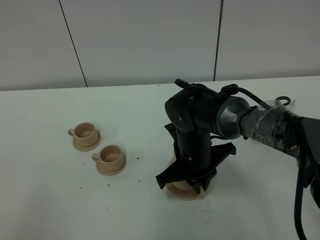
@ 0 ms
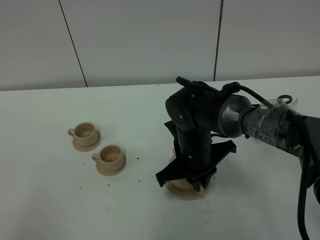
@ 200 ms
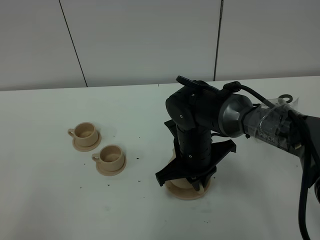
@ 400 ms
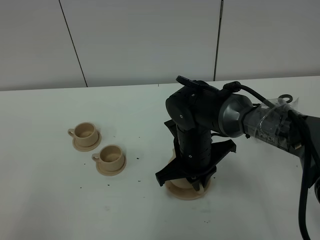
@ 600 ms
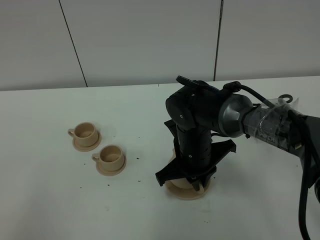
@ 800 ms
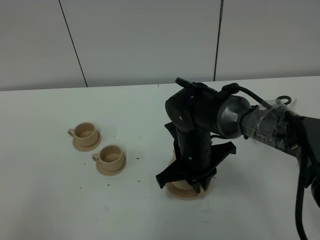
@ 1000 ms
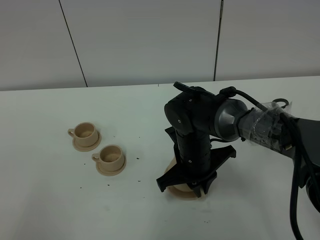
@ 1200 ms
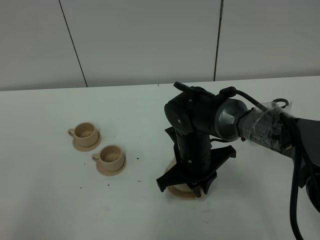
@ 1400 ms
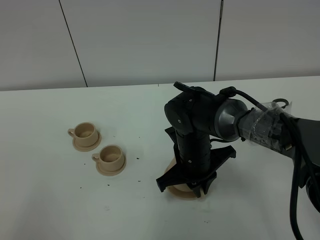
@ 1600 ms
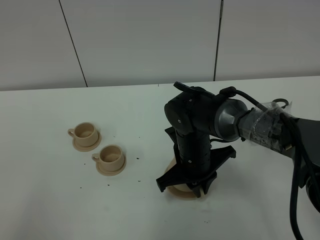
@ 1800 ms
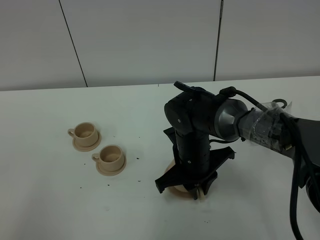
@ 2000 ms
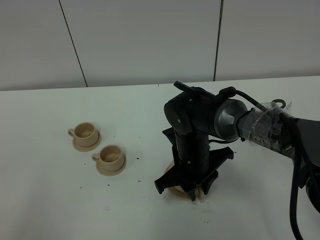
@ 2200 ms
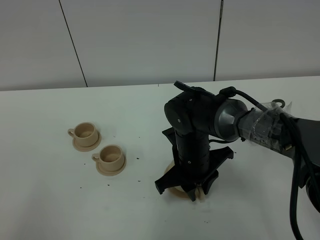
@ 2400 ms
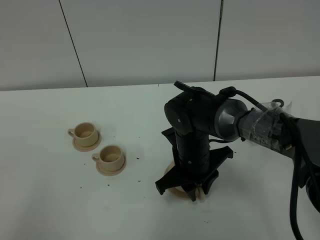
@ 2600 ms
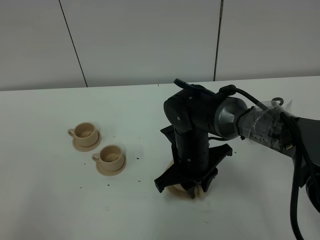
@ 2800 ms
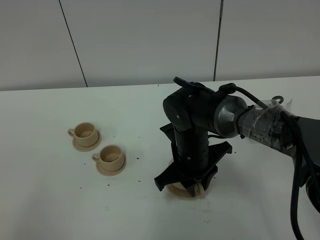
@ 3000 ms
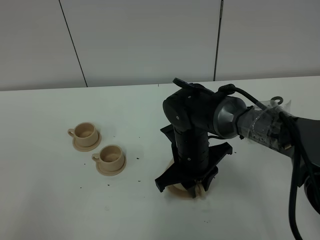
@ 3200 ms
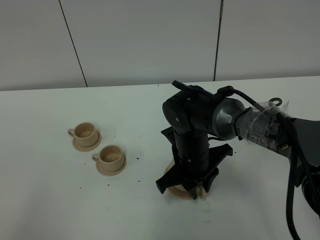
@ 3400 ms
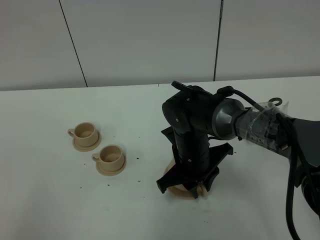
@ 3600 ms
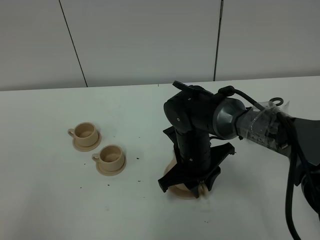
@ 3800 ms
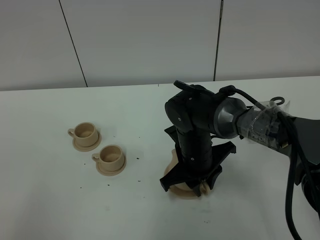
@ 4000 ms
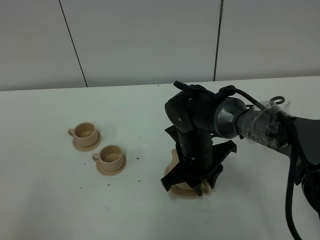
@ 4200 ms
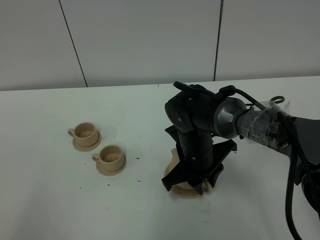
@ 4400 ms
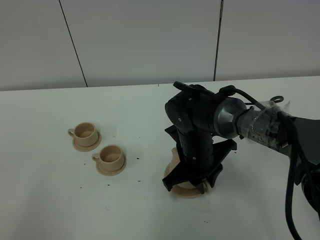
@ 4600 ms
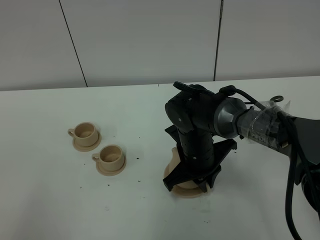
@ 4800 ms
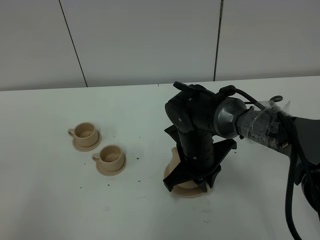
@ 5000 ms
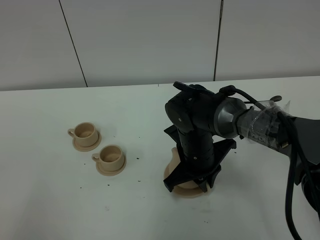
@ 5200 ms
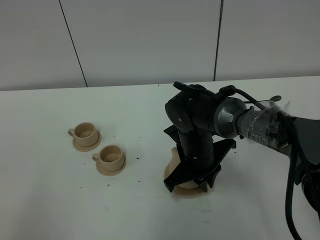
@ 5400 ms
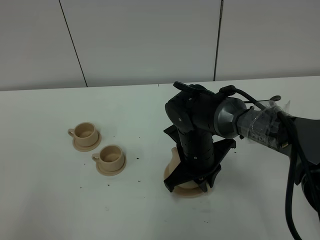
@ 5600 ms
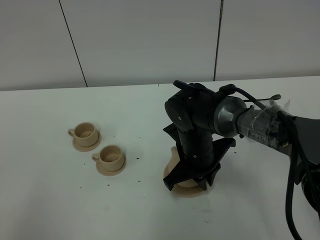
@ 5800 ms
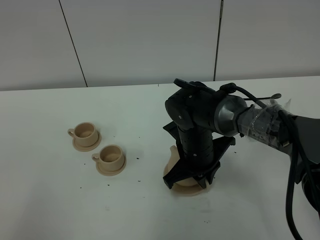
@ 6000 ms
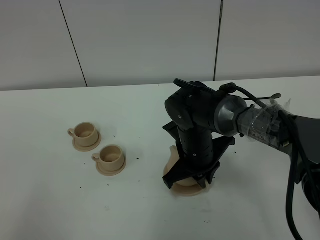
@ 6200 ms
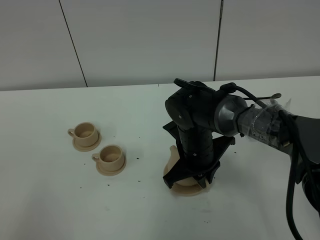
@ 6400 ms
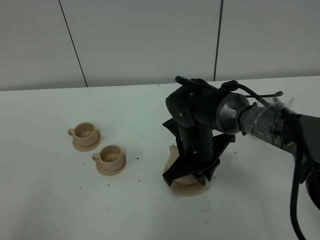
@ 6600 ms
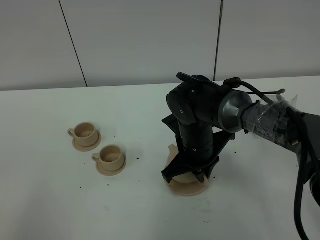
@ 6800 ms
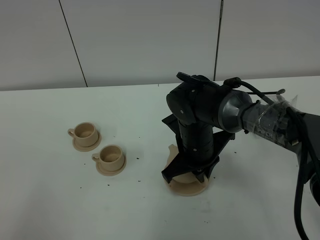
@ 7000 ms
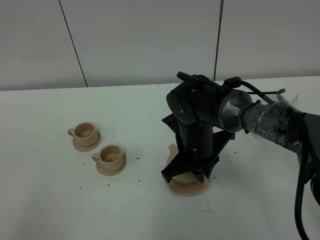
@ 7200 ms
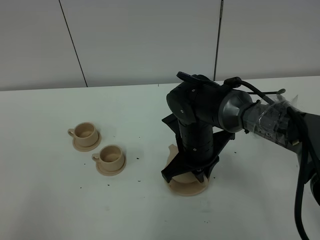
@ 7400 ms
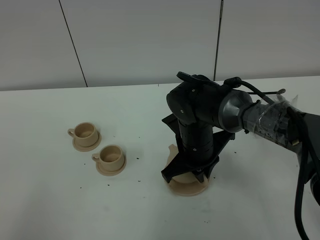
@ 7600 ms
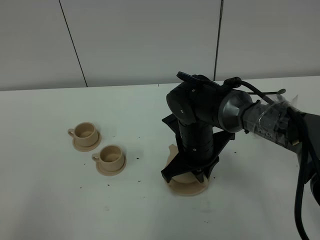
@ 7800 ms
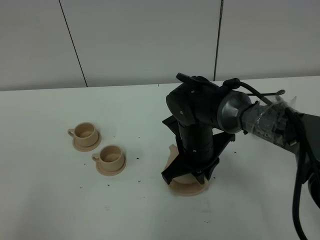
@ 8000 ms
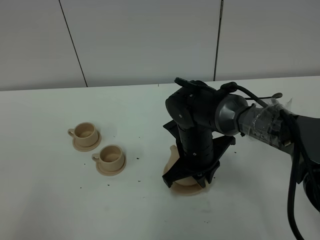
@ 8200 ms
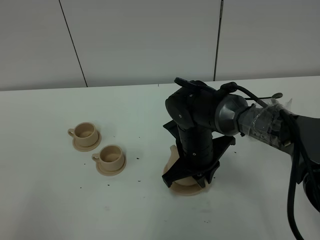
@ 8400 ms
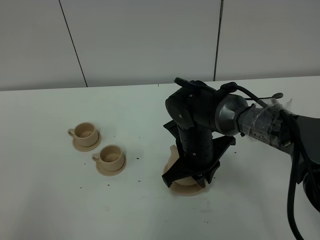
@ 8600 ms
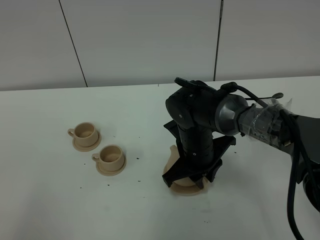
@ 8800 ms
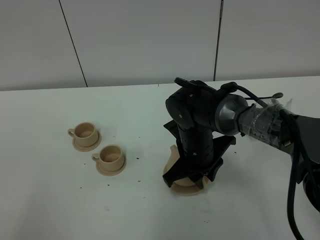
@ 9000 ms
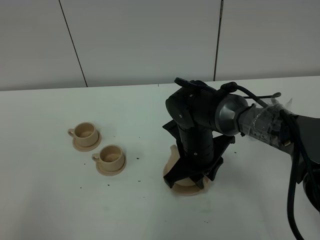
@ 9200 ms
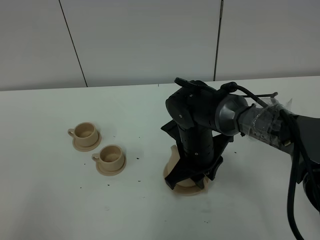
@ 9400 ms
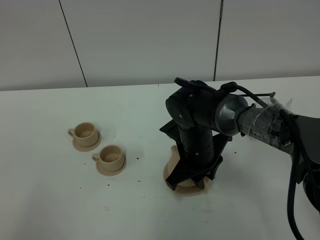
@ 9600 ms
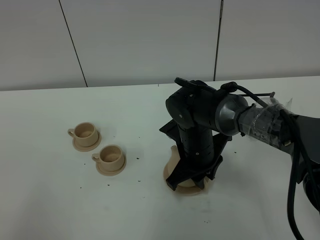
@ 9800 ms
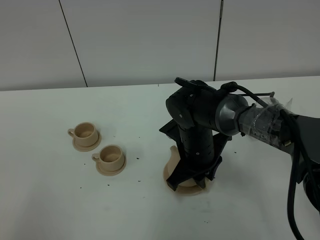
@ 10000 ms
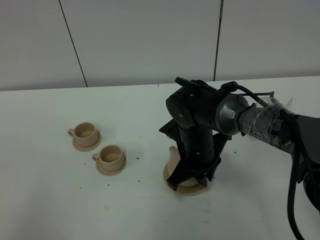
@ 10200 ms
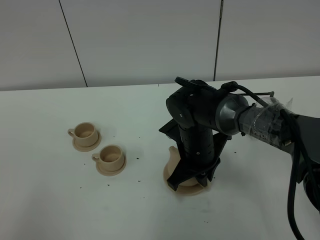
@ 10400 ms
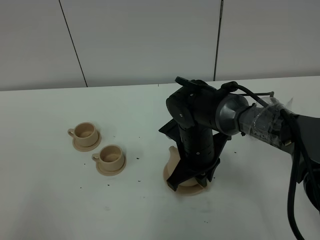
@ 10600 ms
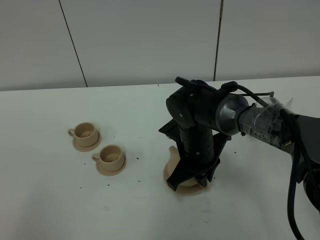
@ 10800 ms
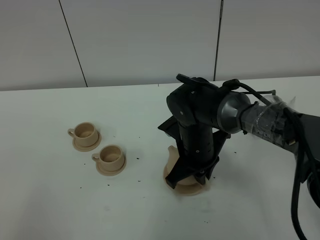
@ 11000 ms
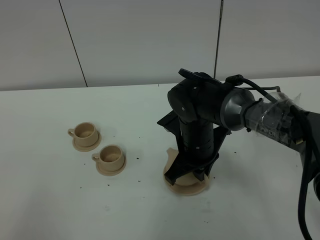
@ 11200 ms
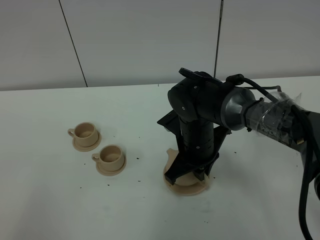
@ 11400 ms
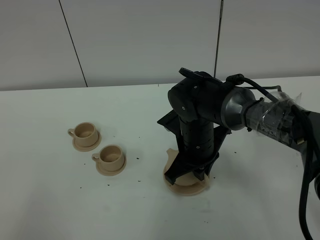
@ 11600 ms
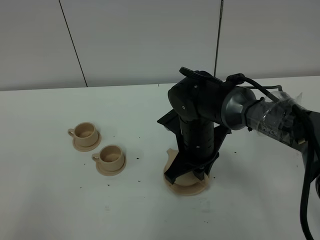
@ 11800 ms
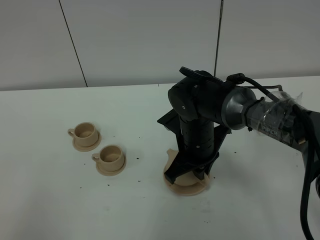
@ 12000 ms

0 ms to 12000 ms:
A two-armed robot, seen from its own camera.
Task of the whole recording: grasp the brown teapot and pour the tea into the two brown teacups one by one, put the brown teapot back in its original place.
0 ms to 1600 ms: Both grippers stay about where they are.
1600 ms to 3000 ms: The right gripper opens its fingers.
3000 ms to 4400 ms: The grippers move only a little.
4400 ms to 6000 ms: The right gripper closes up.
6000 ms to 7600 ms: There are only small adjustments of the grippers.
7600 ms to 9000 ms: The right gripper opens its fingers.
9000 ms to 10400 ms: The right gripper closes its fingers.
10400 ms to 12000 ms: The grippers stay close to where they were, moving slightly.

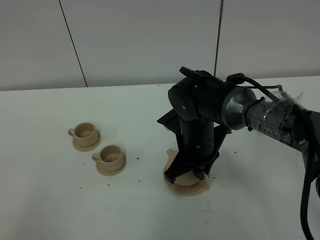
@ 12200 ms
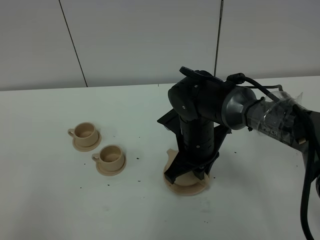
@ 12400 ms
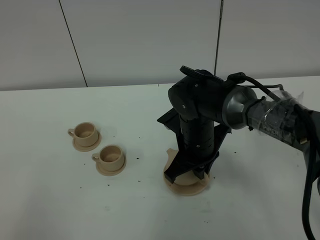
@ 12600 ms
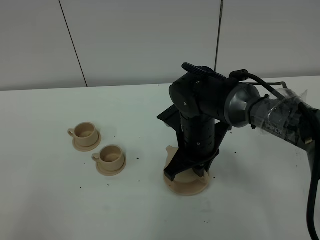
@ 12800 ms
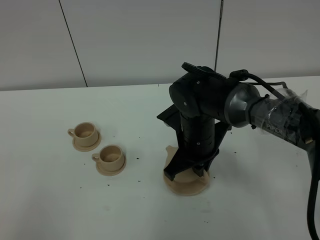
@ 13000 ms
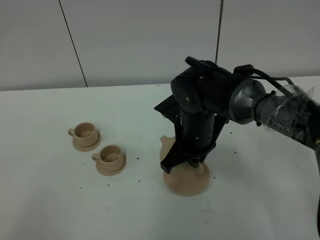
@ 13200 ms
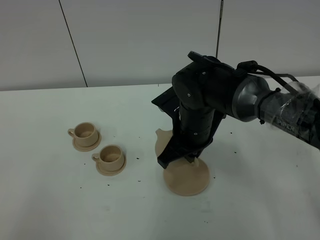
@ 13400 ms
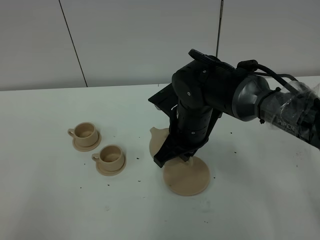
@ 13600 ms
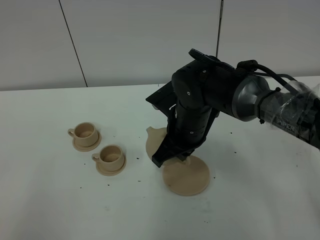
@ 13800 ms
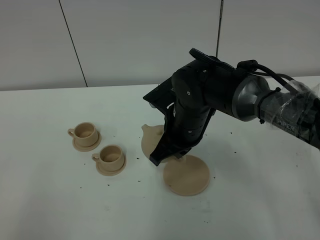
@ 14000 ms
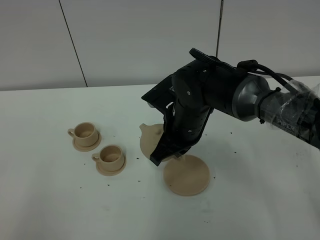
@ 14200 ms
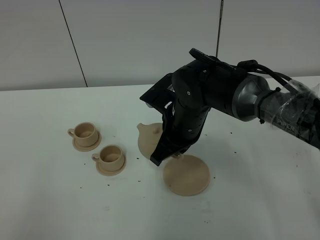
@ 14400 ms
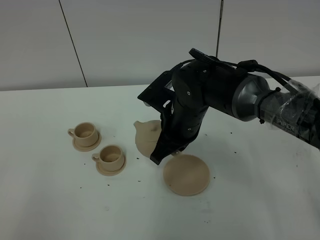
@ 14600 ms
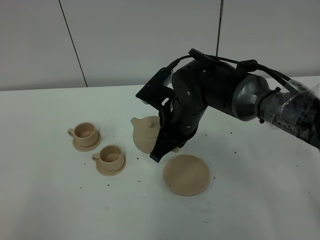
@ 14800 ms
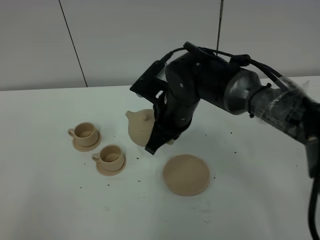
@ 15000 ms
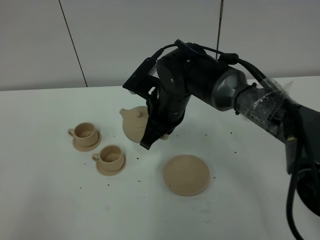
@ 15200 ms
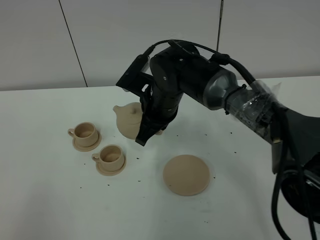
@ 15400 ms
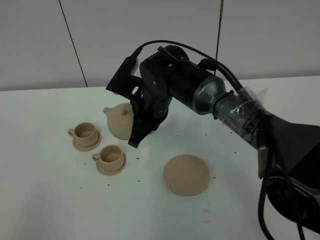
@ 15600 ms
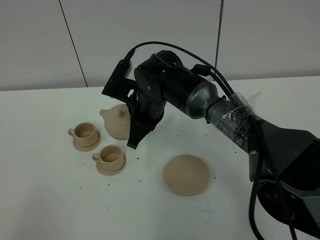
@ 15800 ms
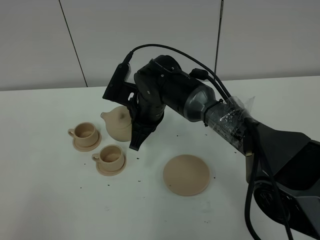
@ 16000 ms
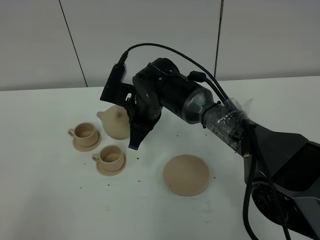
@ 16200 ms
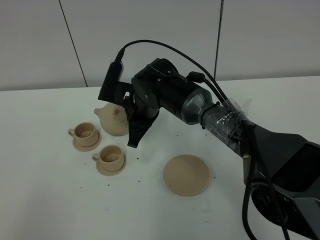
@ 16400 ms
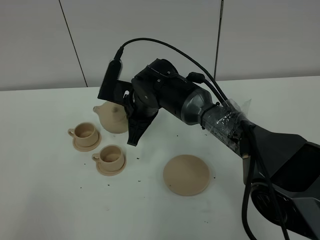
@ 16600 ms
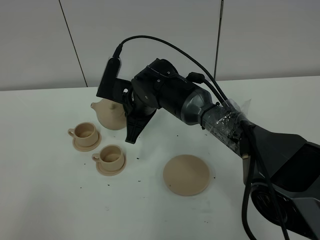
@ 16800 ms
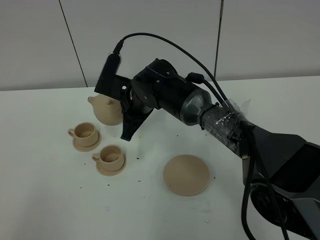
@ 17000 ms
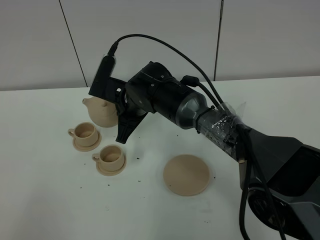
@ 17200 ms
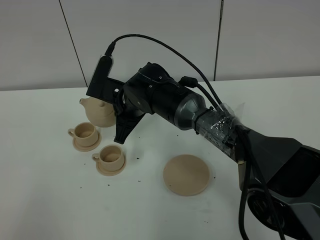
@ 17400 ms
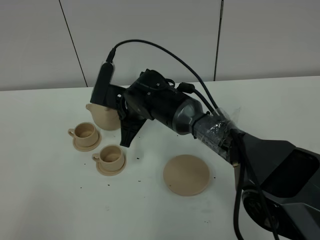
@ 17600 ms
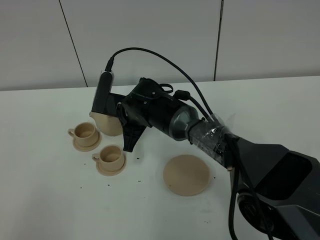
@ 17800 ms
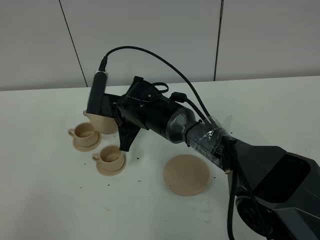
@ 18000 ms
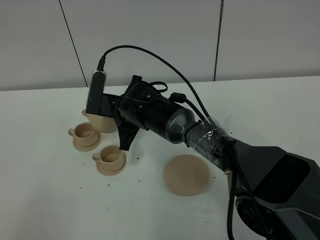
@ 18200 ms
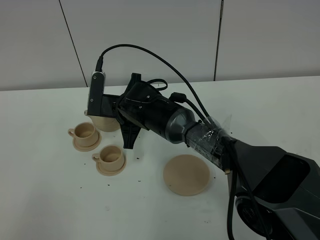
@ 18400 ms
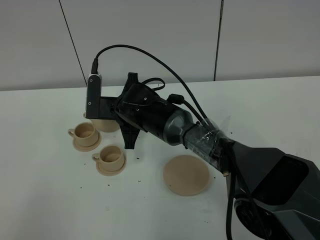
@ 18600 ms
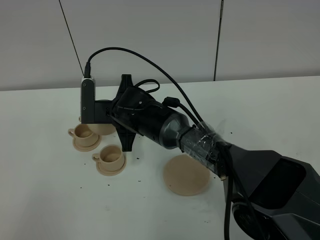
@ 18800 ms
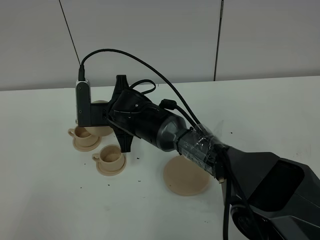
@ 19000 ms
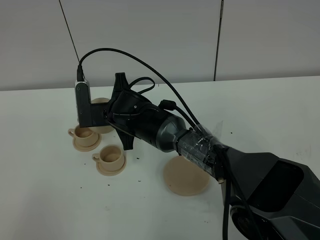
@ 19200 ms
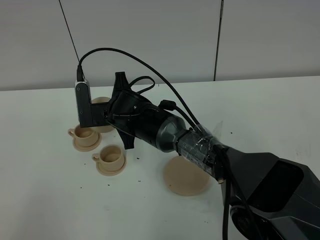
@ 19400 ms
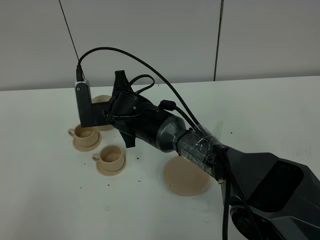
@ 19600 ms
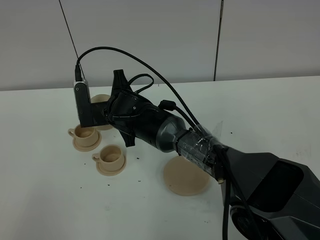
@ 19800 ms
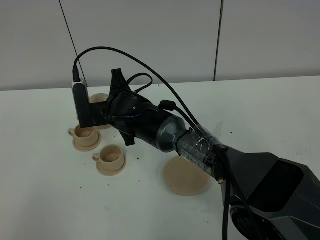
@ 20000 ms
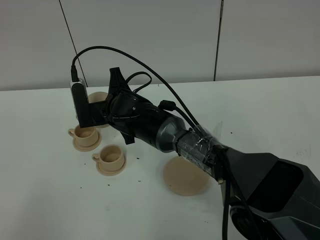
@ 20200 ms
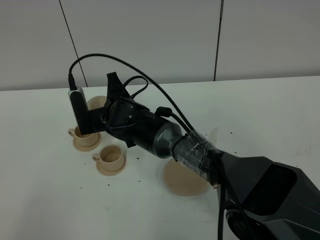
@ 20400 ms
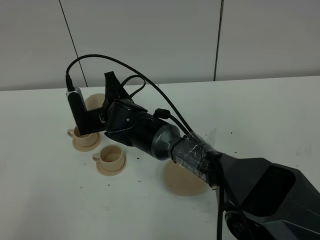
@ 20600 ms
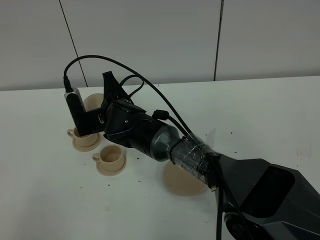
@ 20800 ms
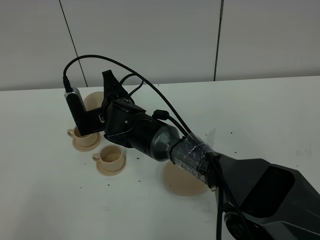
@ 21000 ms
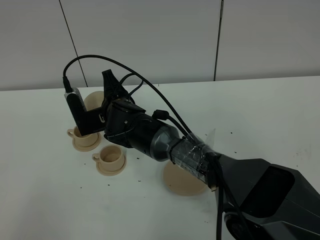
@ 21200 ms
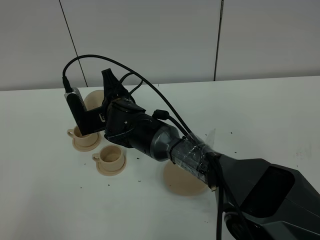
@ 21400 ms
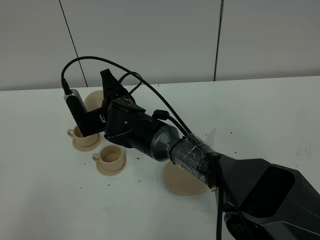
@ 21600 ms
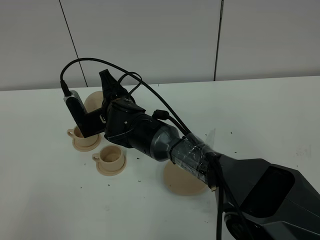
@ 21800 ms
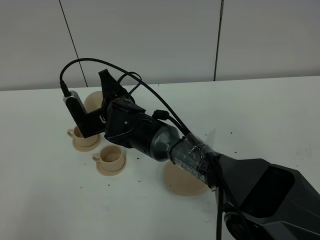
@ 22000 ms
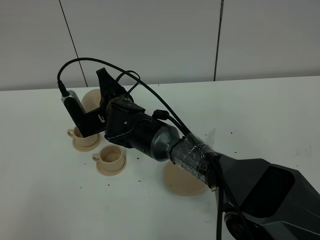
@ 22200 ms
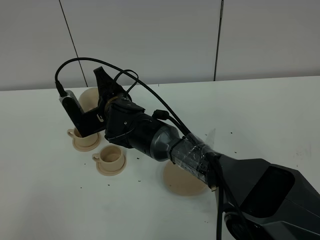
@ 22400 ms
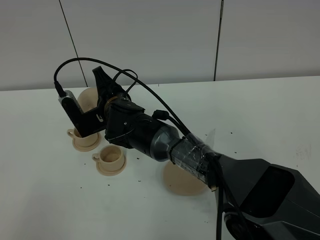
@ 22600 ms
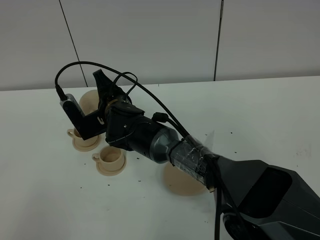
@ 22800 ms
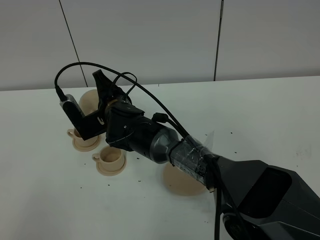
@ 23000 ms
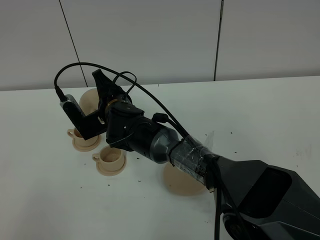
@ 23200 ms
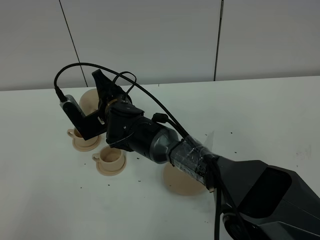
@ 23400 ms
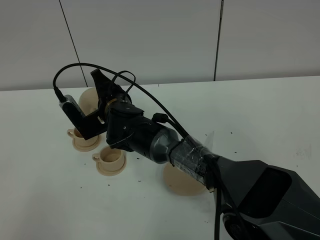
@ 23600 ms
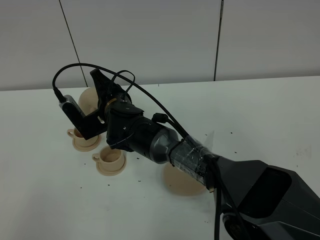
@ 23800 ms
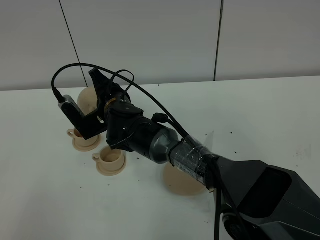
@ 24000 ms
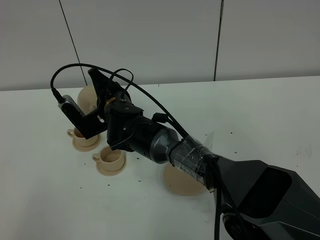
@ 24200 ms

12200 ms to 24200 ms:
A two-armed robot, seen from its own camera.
Task of the whole recording: grasp the brown teapot and pour the tea into the two brown teacups one by one, put the brown teapot back in its original place.
12200 ms to 13800 ms: There are only small adjustments of the grippers.
13800 ms to 15200 ms: The right gripper shifts by approximately 5 cm.
15200 ms to 16600 ms: The right gripper shifts by about 5 cm.
16600 ms to 18200 ms: The grippers move only a little.
19800 ms to 21200 ms: The grippers stay close to where they were, moving slightly.
21200 ms to 24200 ms: There are only small adjustments of the grippers.
